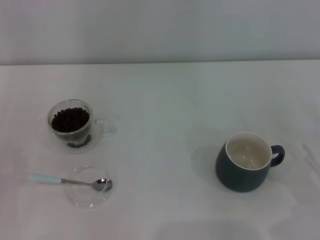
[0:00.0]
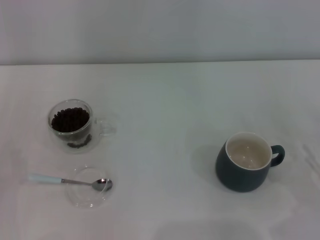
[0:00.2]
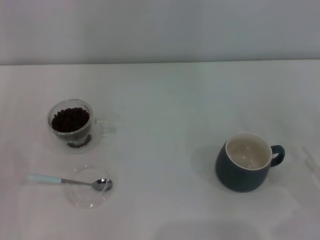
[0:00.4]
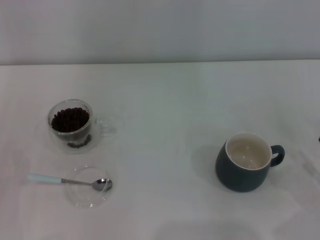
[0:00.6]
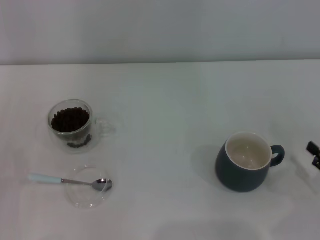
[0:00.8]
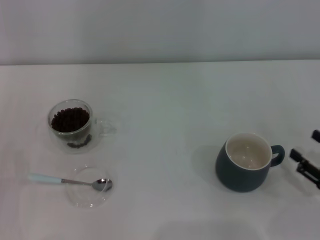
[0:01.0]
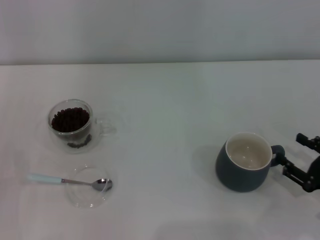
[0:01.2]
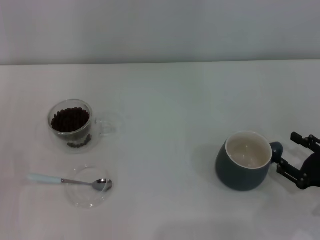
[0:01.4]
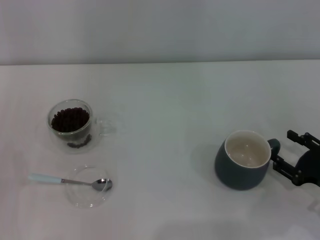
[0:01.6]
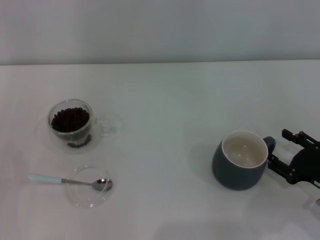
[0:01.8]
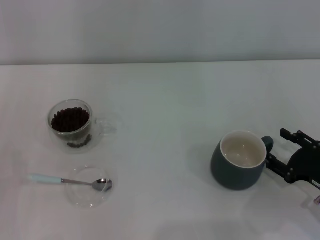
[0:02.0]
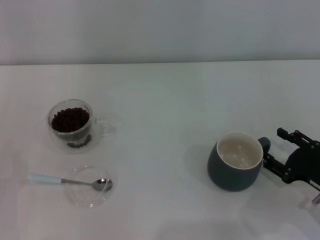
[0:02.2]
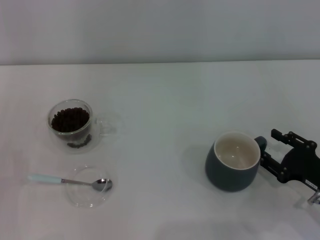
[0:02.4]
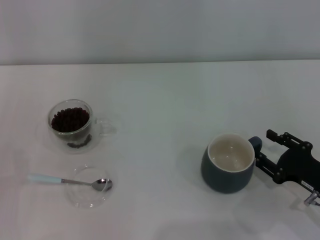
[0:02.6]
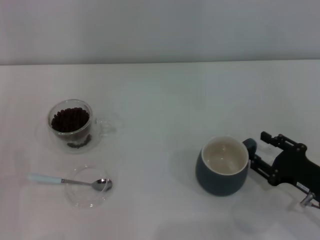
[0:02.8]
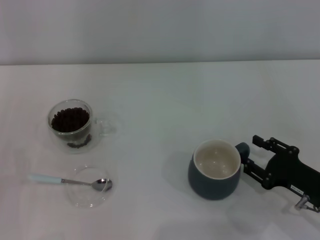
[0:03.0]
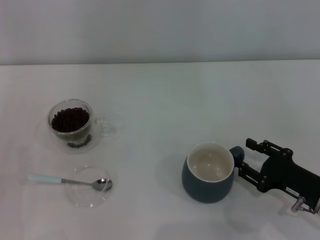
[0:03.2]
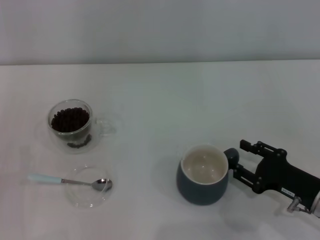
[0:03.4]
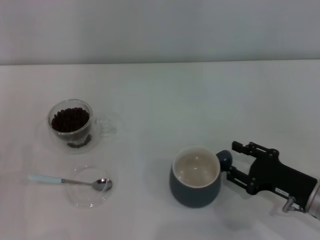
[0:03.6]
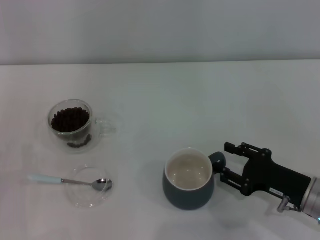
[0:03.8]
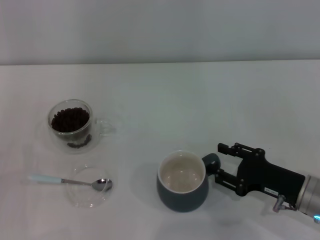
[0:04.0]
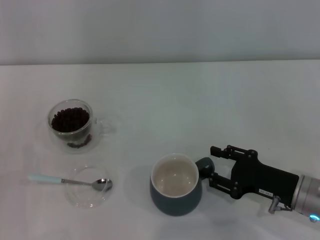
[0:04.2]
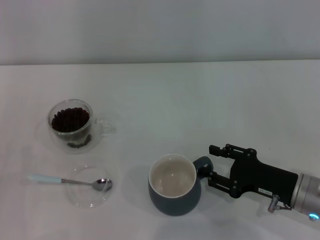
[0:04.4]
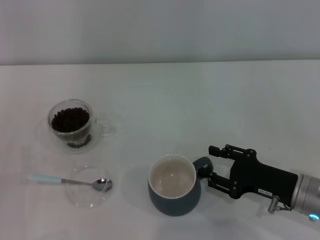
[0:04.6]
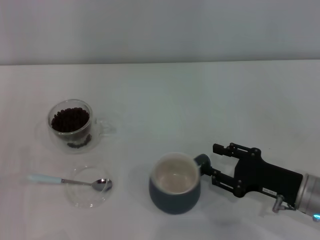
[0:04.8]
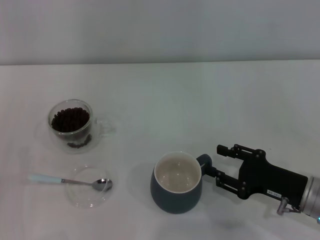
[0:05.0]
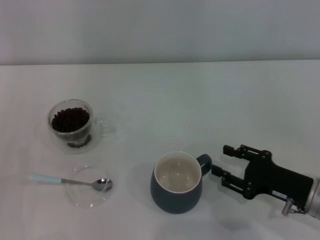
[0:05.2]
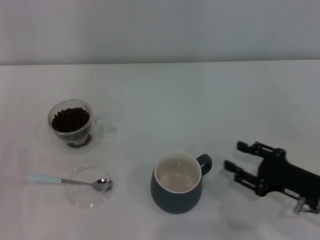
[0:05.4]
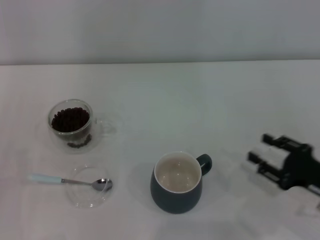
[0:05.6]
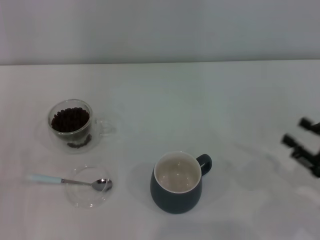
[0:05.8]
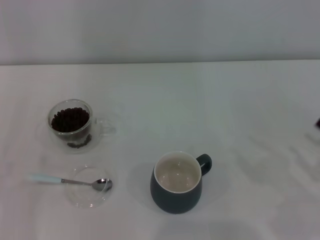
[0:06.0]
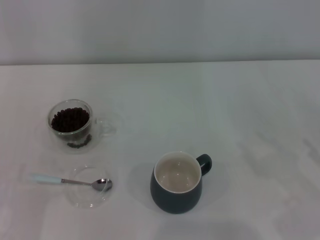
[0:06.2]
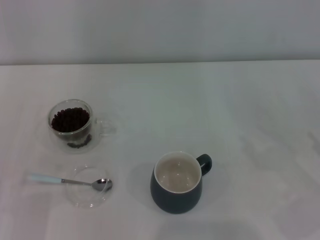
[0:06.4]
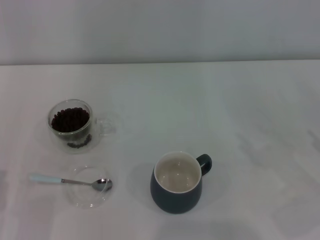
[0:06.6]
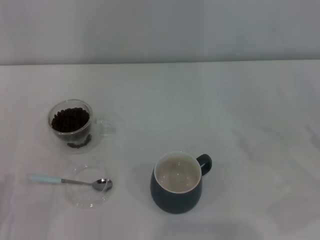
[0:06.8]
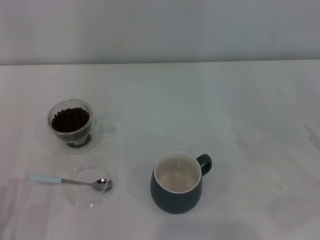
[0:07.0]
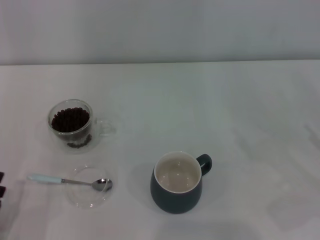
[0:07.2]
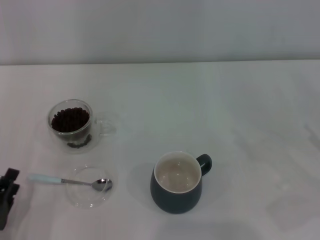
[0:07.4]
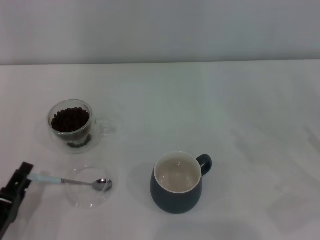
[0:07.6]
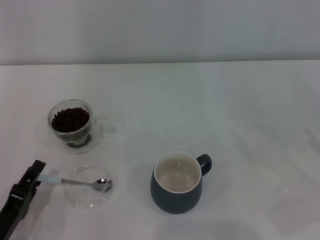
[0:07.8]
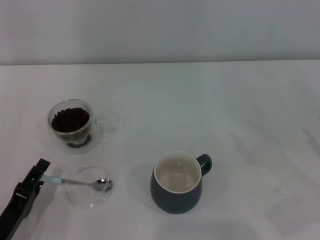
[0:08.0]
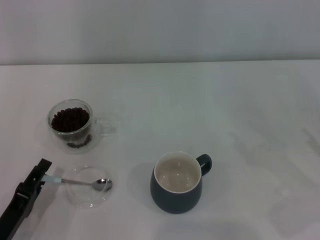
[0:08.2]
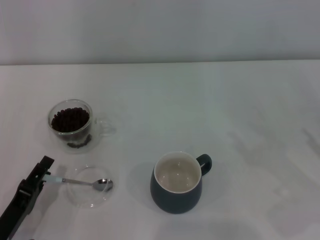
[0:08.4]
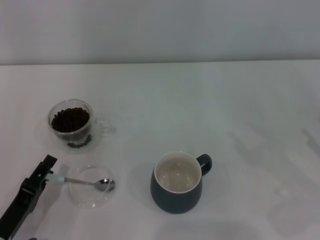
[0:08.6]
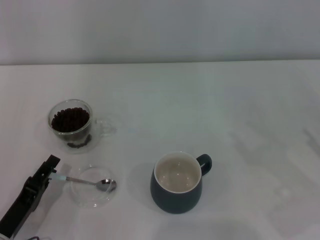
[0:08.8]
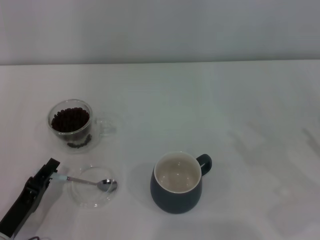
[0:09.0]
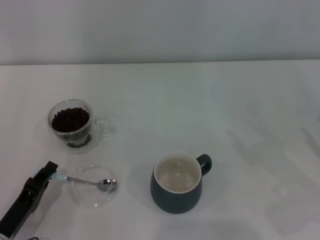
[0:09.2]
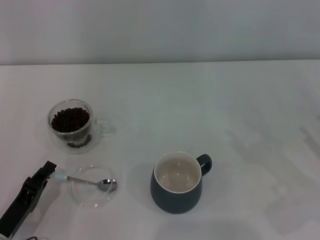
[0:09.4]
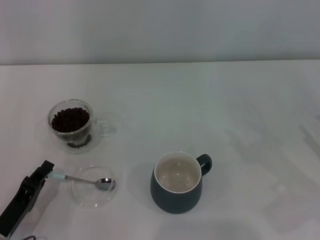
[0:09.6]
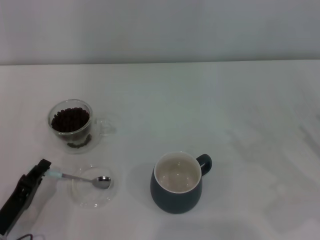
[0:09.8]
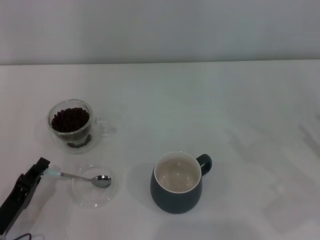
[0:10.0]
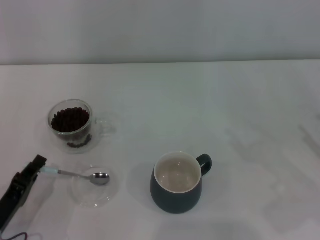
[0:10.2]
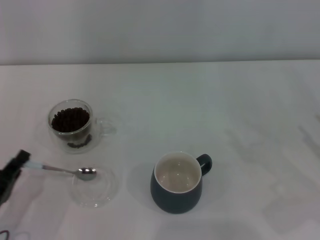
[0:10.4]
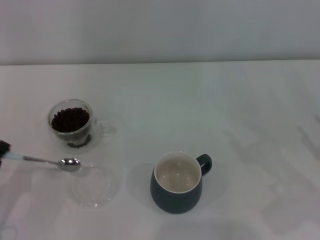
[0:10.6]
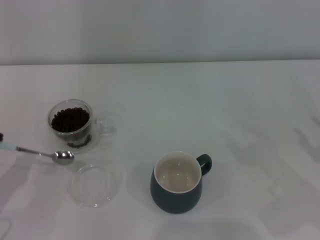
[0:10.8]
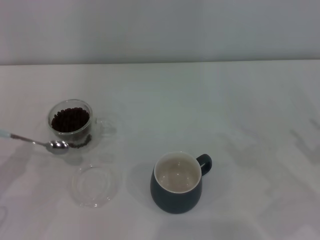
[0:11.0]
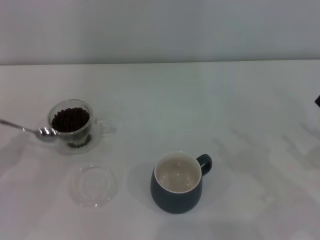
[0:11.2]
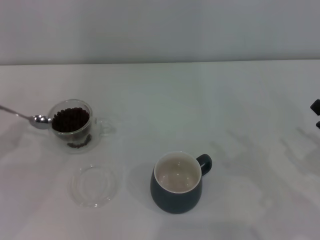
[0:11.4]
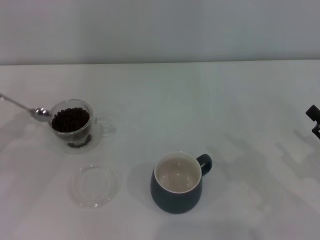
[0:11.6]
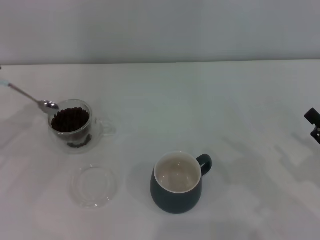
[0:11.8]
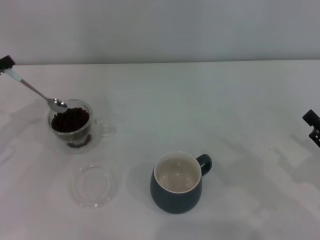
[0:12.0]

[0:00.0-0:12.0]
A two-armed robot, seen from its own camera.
Task of the whole recording: Use a blue spoon to take out the coffee beans from the glass and pour them into the gray cup.
Step, 0:00.0 to 0:05.2: Move the cup to the center of view with the left gripper.
Step, 0:05.4 to 0:10.4: Pick up the spoon with the right gripper.
0:00.0 to 0:01.6: The right gripper moves some 5 cm.
0:01.6 to 0:03.0: There are only small adjustments of the grippers.
0:03.0 to 0:04.4: There are only small adjustments of the grippers.
0:04.4 to 0:06.0: The right gripper is displaced to the right and backward by some 15 cm.
0:06.0 to 0:07.6: The left gripper is displaced to the right by roughly 5 cm.
0:07.6 to 0:09.0: The grippers move only a little.
0:09.0 to 0:10.4: The left gripper closes its fingers.
0:10.4 to 0:12.0: The left gripper moves forward and upward, roughly 20 cm.

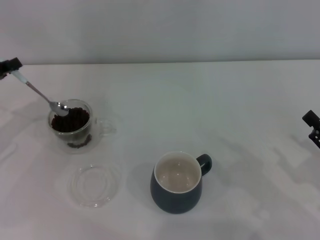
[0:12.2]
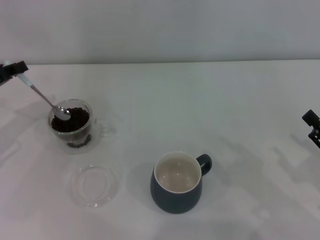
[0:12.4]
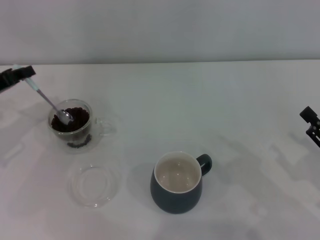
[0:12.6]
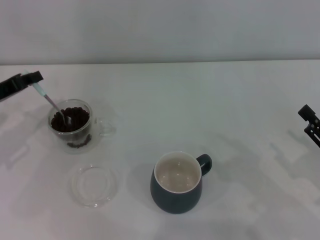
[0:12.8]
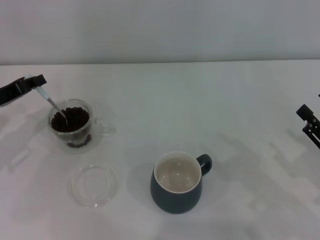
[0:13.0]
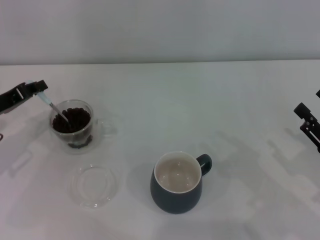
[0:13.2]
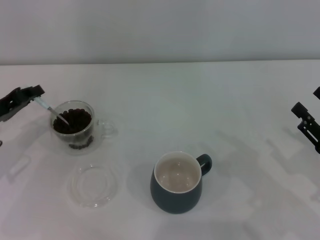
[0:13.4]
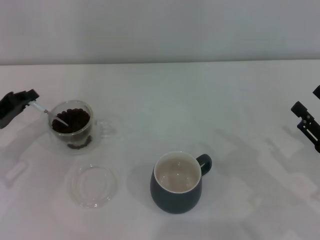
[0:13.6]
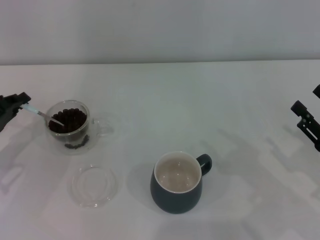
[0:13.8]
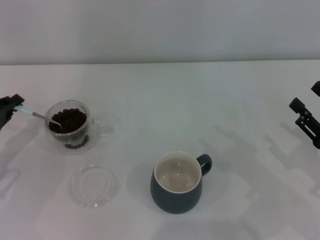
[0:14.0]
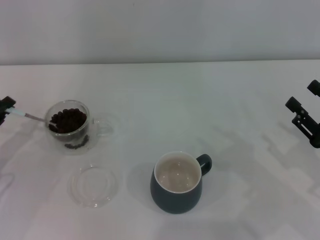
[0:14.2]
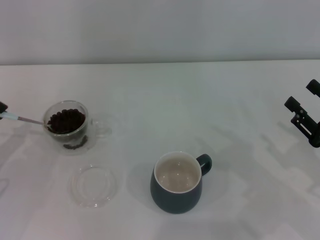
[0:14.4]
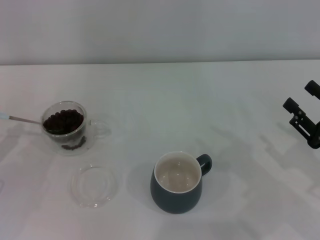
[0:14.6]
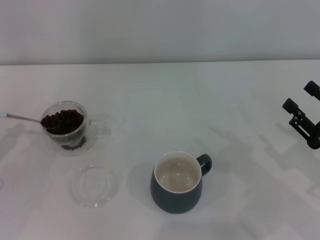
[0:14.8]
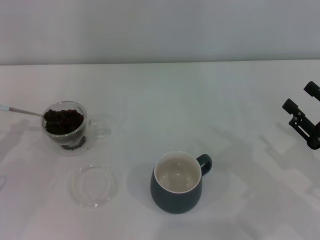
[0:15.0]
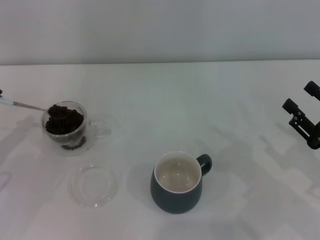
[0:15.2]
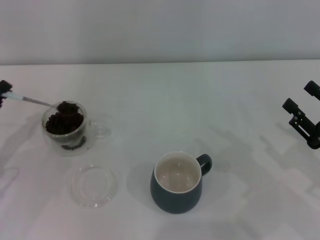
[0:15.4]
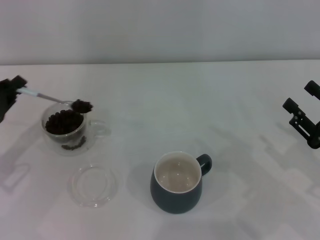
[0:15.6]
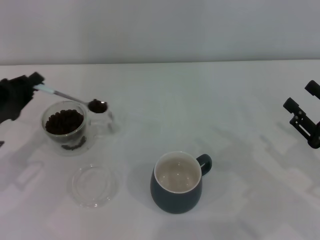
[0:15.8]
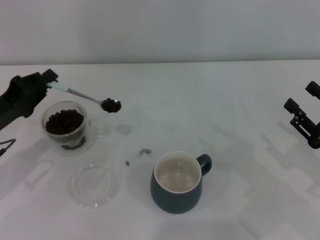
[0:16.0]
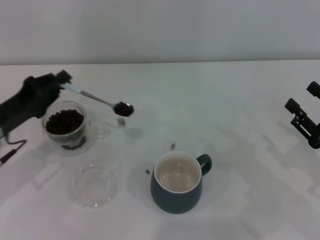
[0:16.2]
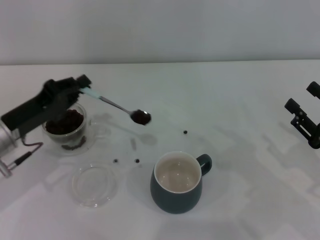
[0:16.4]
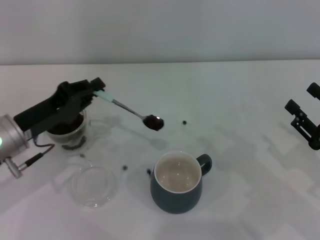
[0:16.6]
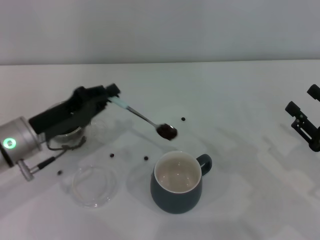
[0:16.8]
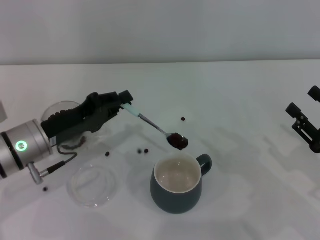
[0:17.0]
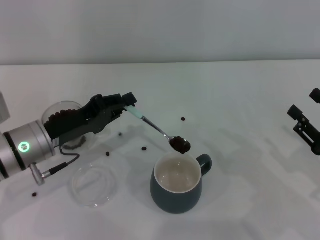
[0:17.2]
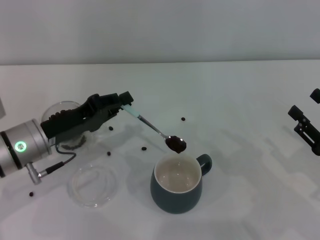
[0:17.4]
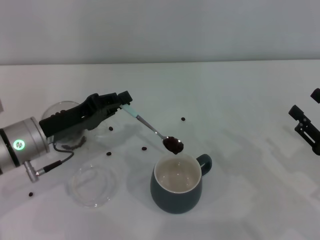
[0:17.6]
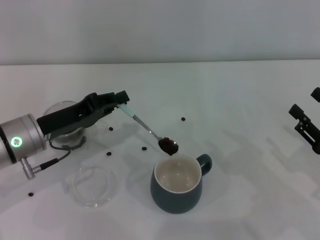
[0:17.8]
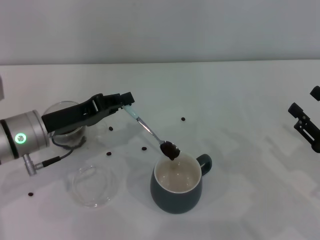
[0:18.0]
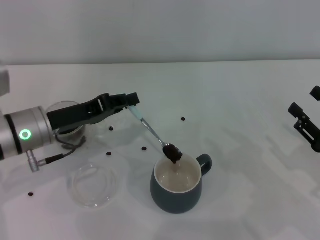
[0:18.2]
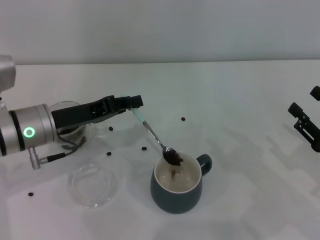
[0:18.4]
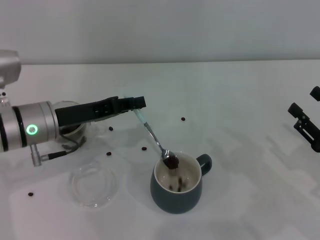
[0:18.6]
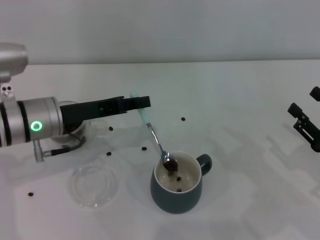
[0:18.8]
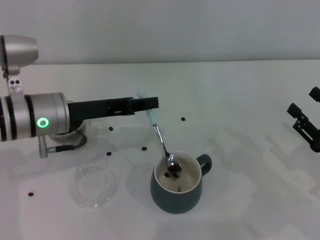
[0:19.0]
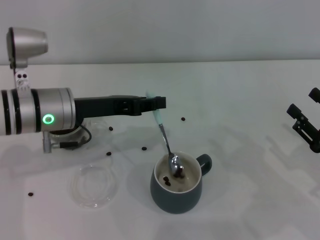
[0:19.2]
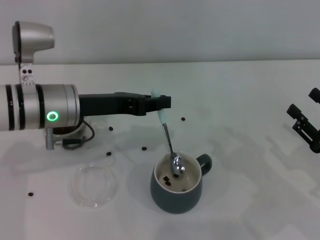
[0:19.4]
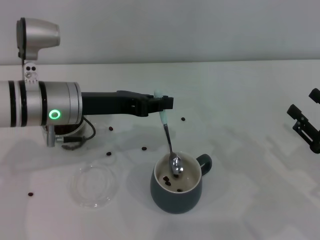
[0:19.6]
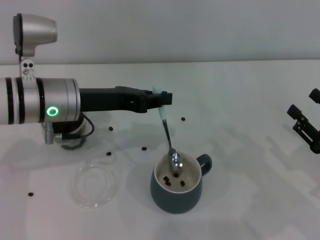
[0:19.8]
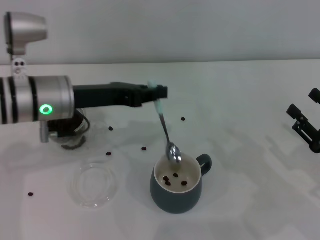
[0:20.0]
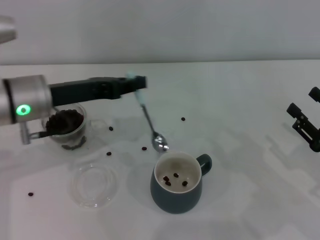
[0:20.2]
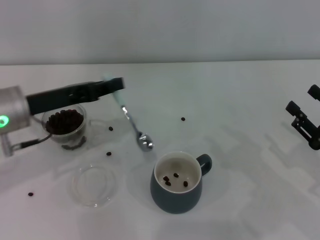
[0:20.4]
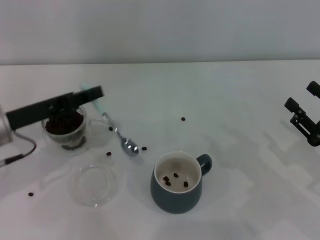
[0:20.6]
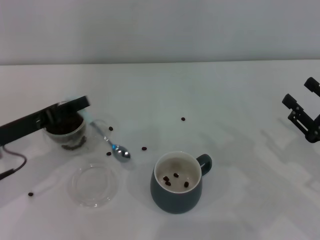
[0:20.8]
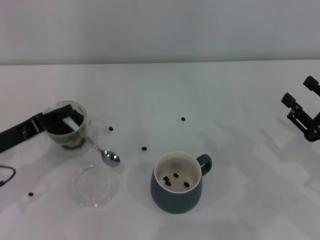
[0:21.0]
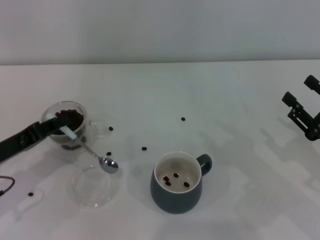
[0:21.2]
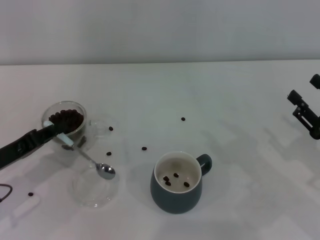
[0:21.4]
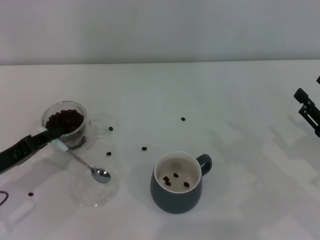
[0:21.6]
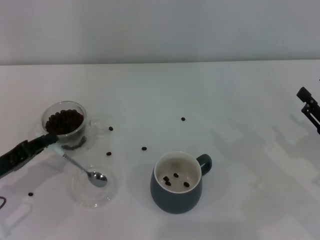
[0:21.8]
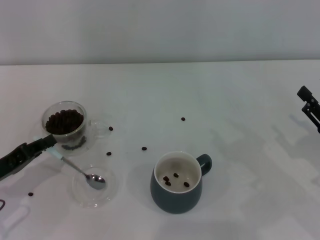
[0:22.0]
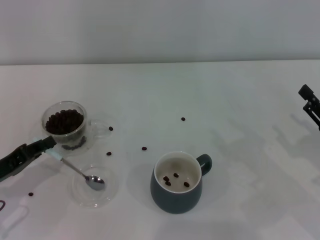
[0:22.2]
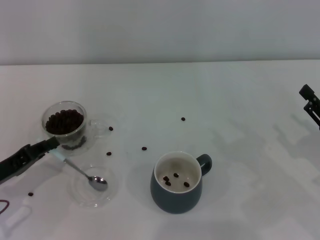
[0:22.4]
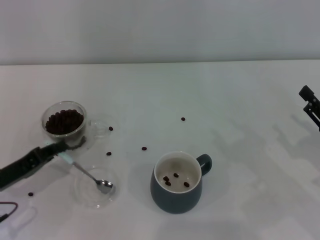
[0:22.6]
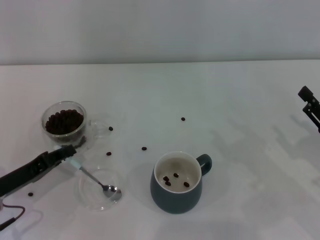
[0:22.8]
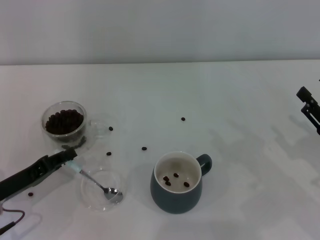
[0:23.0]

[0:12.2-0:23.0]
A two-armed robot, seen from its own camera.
Task of the whole recording: Use a blue spoon to take out the coffee beans from the glass and pour them into the gray cup.
0:12.2 to 0:13.8: The left gripper moves downward, about 5 cm.
0:13.8 to 0:15.2: The grippers make only small movements.
0:15.2 to 0:16.8: The left gripper moves to the right, some 15 cm.
0:18.4 to 0:20.0: The left gripper shifts approximately 5 cm upward.
0:20.0 to 0:21.4: The left gripper goes about 20 cm to the left, downward and backward.
0:21.4 to 0:23.0: The grippers stay close to where they were, moving slightly.
